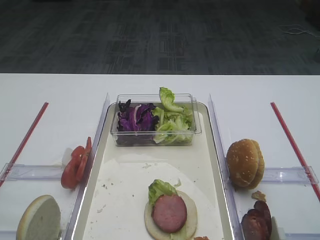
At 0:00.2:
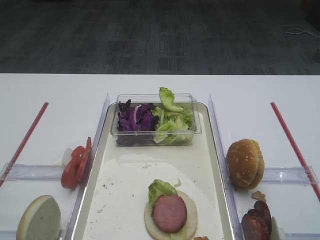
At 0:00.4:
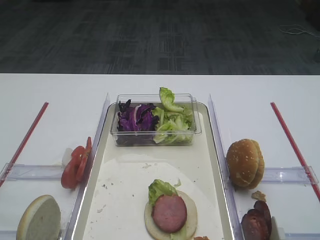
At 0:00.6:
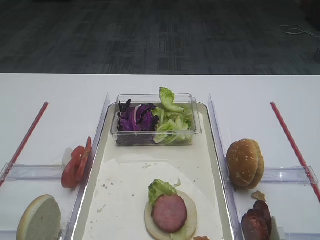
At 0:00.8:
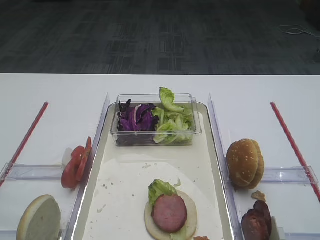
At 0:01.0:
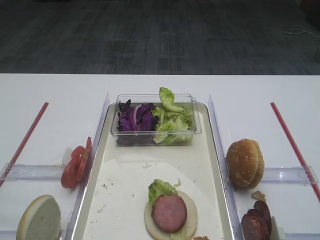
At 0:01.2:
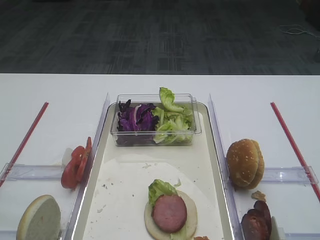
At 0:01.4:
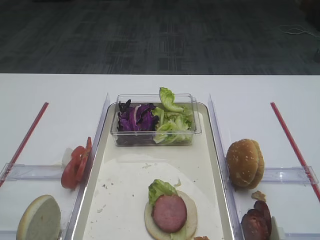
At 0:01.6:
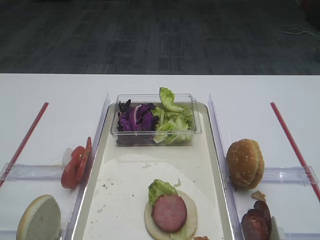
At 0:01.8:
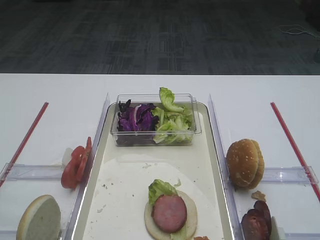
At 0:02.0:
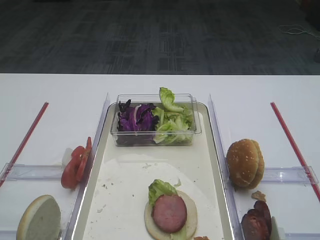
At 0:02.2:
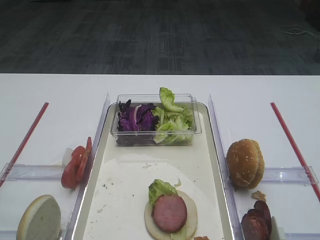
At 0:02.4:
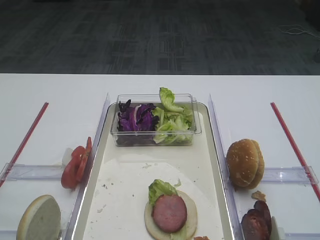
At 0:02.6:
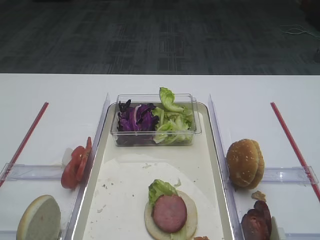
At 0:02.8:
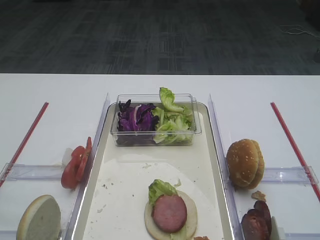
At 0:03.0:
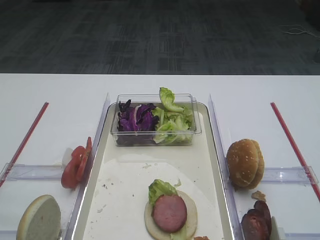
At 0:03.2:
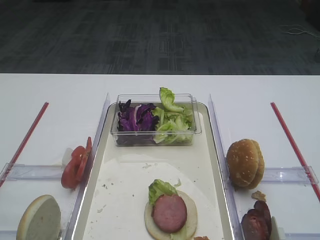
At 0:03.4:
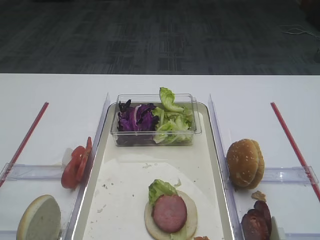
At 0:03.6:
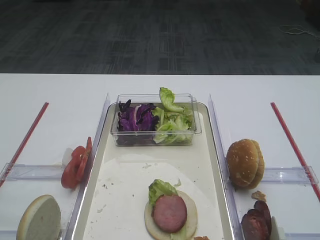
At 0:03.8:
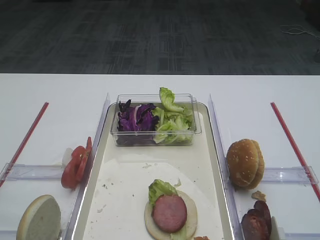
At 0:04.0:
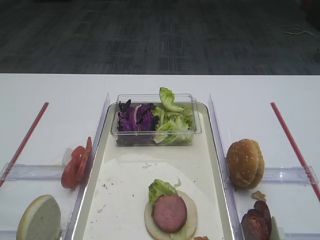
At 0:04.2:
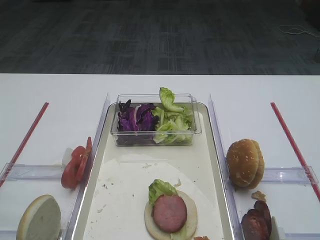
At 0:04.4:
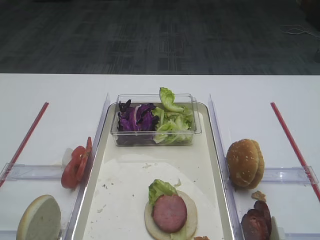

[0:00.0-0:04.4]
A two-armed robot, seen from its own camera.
0:03.0 to 0:04.4: Neither gripper changes place.

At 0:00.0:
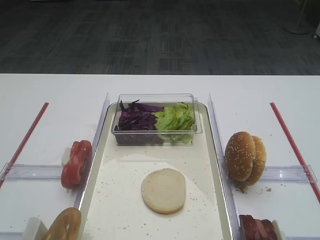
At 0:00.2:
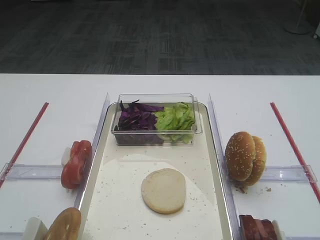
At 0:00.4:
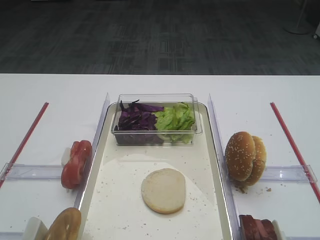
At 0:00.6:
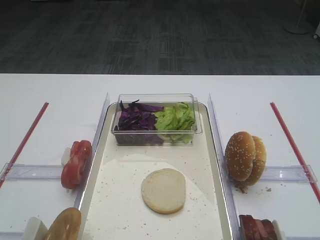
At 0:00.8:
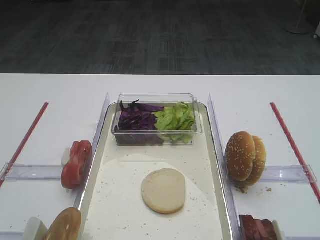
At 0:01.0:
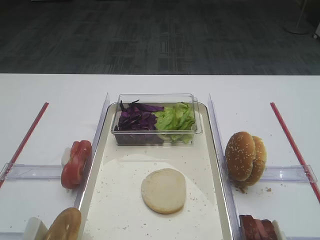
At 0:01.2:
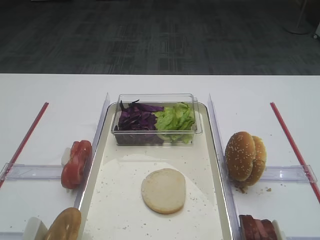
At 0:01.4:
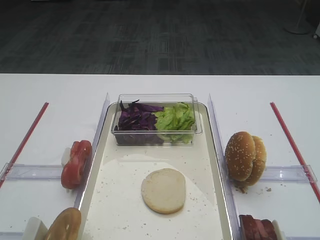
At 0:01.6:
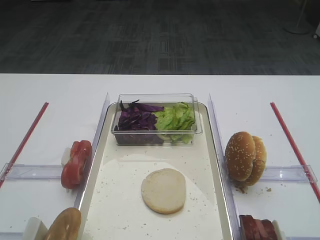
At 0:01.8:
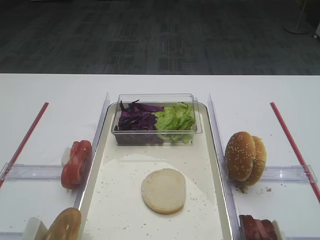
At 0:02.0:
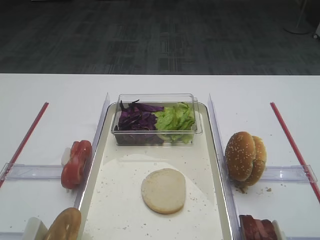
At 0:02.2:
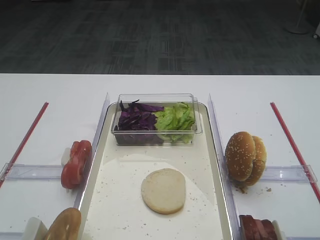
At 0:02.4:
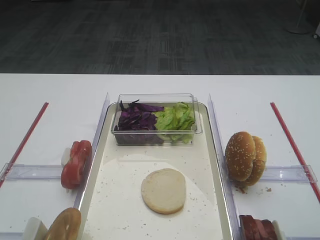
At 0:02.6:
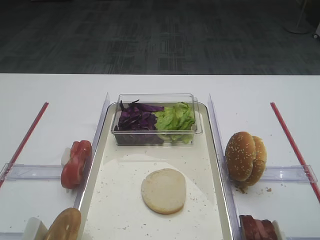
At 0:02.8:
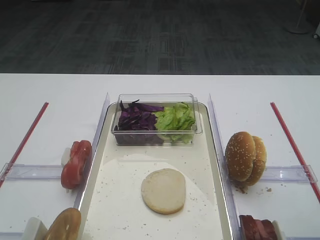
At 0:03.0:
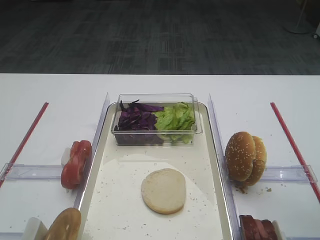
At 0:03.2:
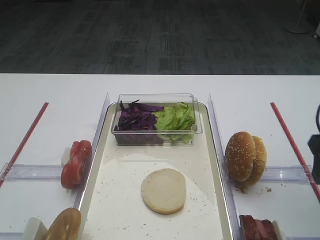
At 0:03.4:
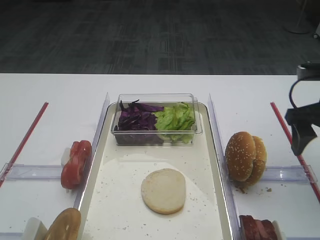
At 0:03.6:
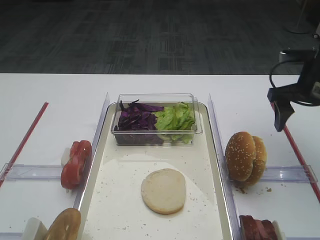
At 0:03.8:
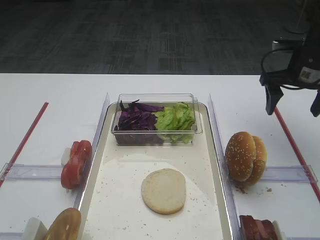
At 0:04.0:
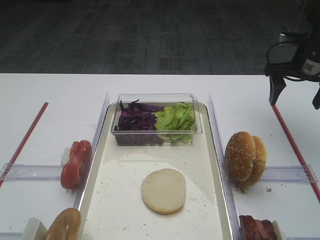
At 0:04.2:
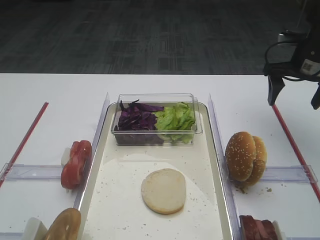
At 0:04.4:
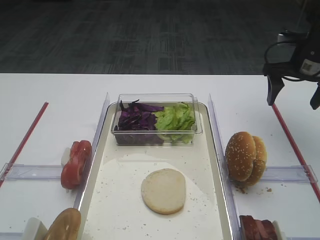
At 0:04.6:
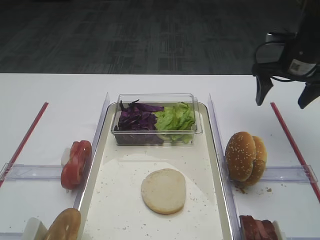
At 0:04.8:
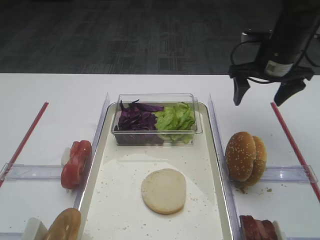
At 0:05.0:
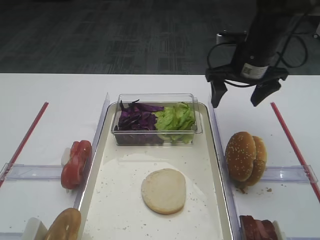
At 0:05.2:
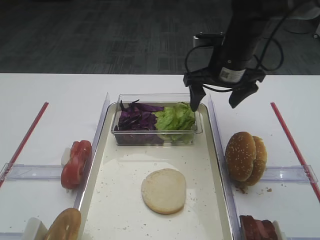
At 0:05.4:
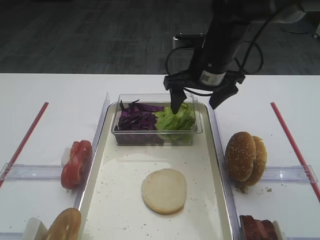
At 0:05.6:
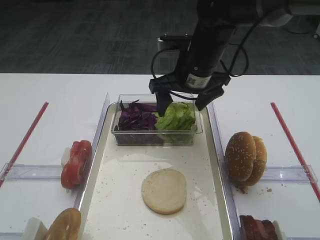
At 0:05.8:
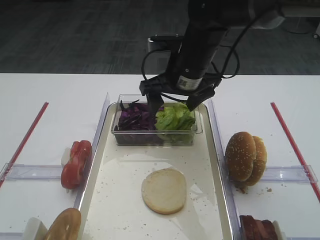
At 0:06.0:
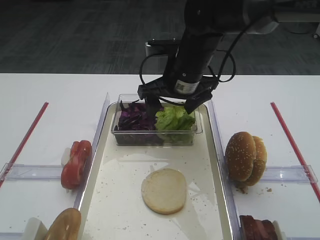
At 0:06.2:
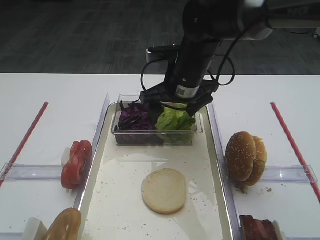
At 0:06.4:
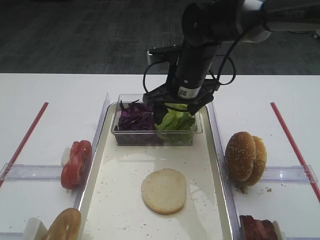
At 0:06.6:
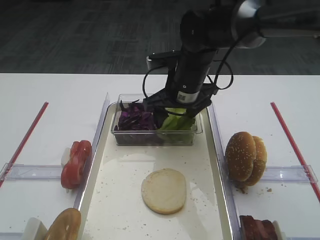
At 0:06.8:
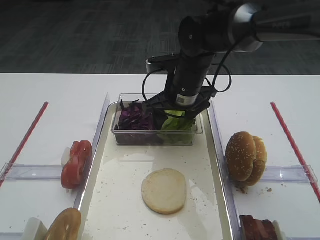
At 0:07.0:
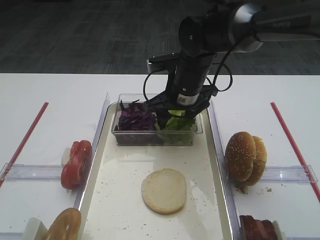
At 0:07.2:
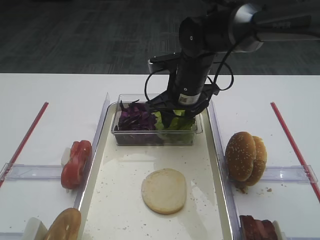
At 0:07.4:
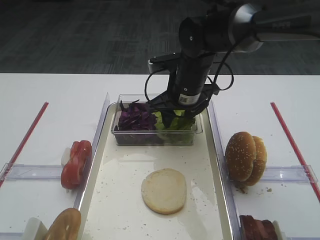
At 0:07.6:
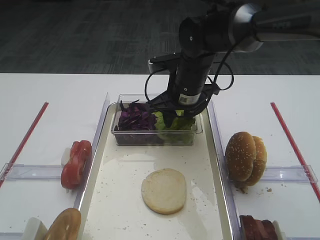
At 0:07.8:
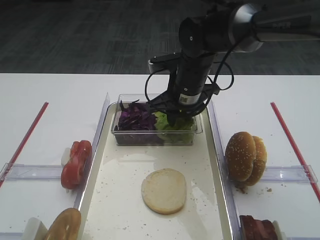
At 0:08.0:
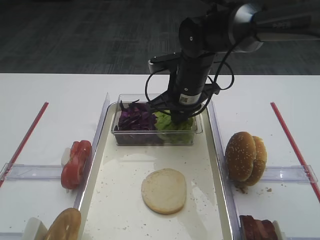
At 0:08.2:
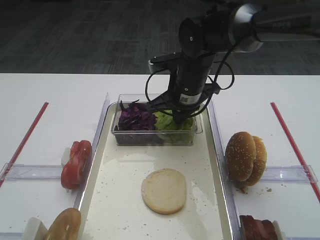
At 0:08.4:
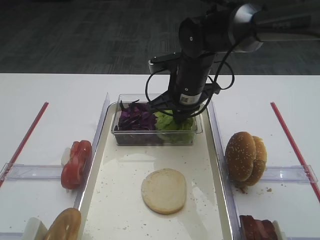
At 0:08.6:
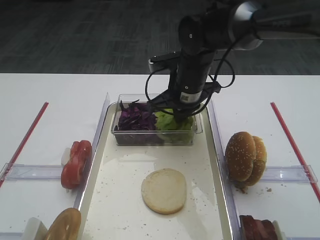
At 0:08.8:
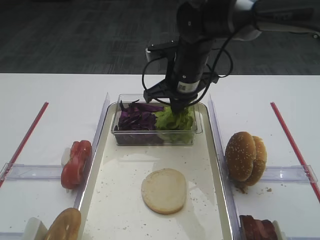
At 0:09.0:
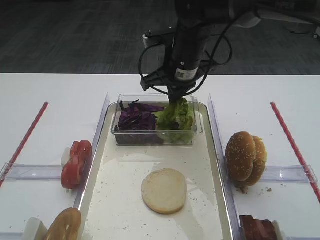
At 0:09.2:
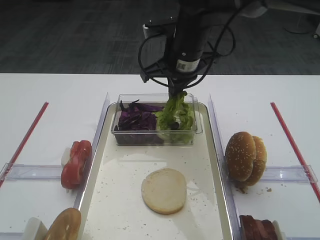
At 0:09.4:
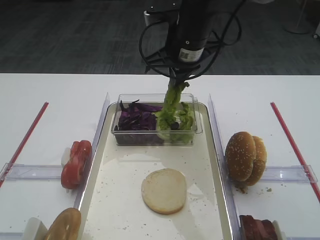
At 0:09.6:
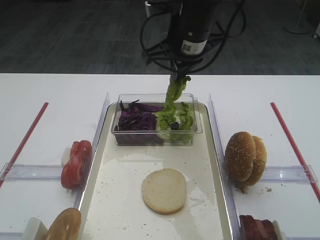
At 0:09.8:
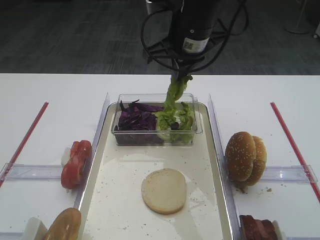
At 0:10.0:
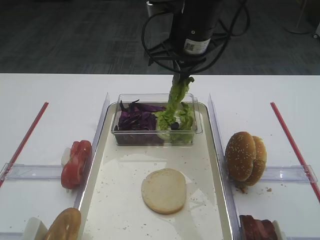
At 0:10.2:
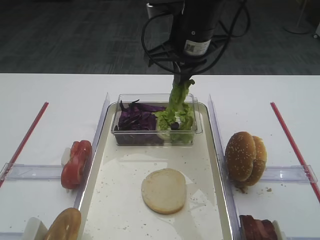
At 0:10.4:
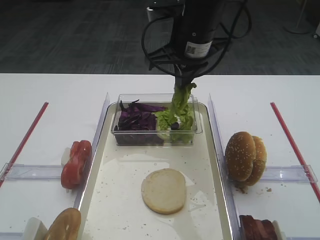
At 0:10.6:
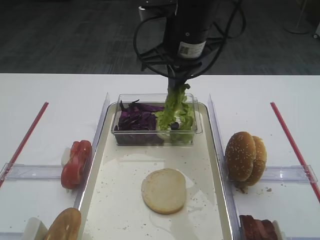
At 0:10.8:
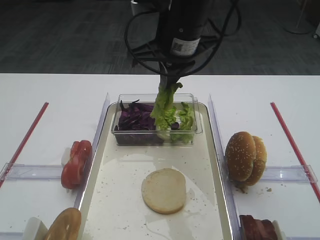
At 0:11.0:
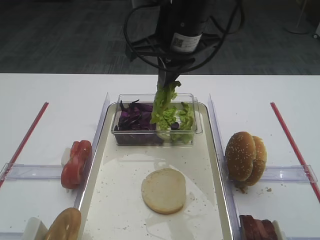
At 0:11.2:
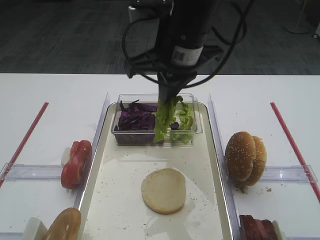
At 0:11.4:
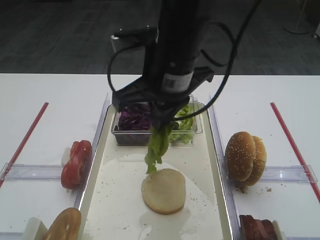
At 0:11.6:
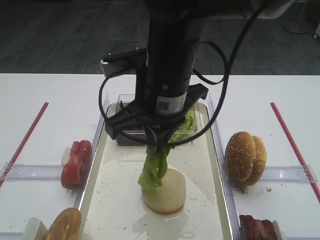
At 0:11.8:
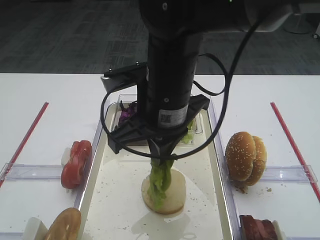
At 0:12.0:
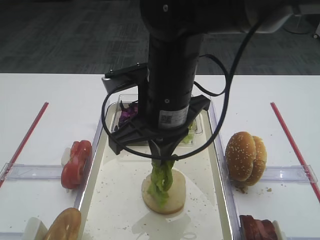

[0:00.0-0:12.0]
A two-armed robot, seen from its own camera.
Step, 0:00.0 to 0:09.0: Pick up the lettuce leaf with the right gripper.
0:01.6 to 0:03.0: The right gripper goes roughly 15 cm forward.
0:03.0 to 0:04.4: The right gripper is displaced forward by approximately 25 cm.
0:04.4 to 0:06.0: The right gripper travels to the left by approximately 25 cm.
0:06.0 to 0:07.6: The right gripper closes up.
0:07.6 to 0:09.0: The right gripper ends up some 5 cm from where it was, and closes up.
0:09.0 to 0:10.4: The right gripper travels upward by approximately 5 cm.
0:10.4 to 0:12.0: The right gripper goes roughly 10 cm backward.

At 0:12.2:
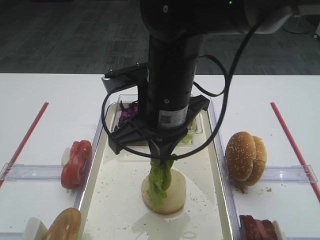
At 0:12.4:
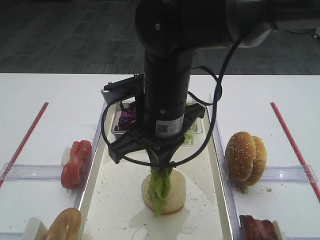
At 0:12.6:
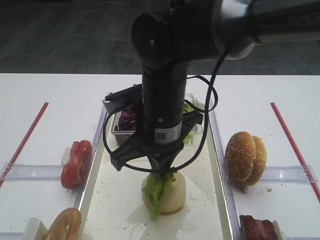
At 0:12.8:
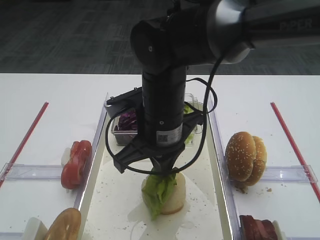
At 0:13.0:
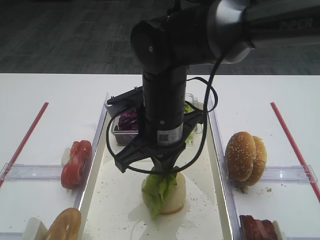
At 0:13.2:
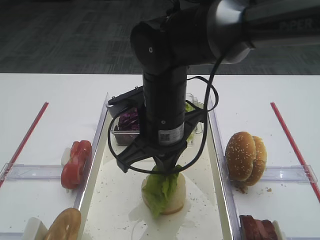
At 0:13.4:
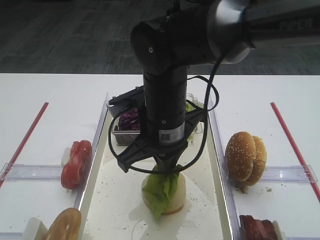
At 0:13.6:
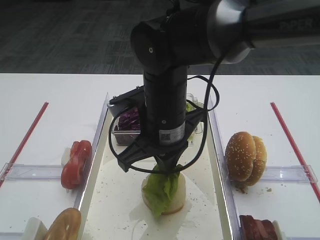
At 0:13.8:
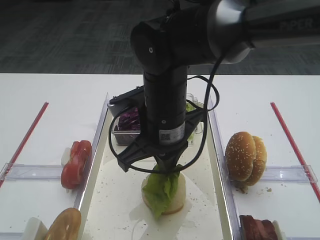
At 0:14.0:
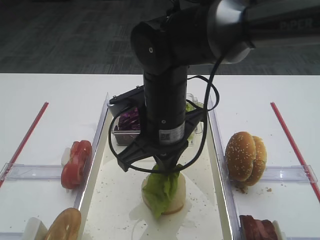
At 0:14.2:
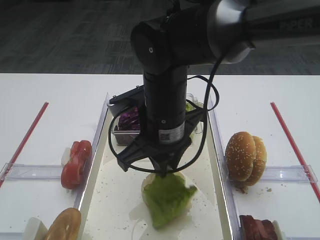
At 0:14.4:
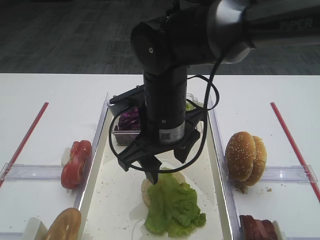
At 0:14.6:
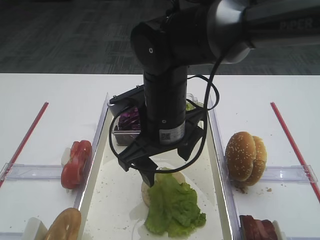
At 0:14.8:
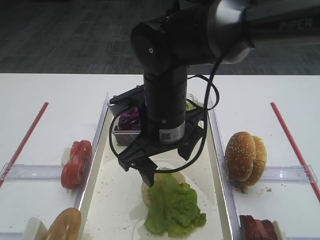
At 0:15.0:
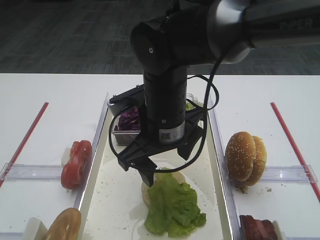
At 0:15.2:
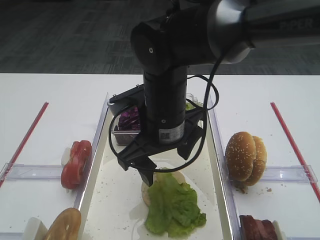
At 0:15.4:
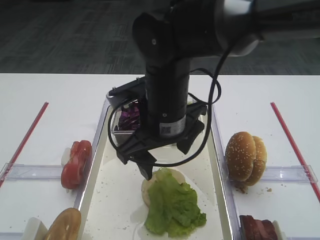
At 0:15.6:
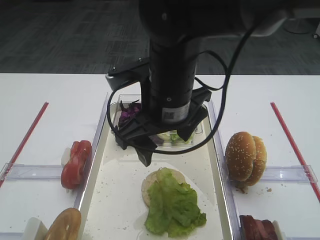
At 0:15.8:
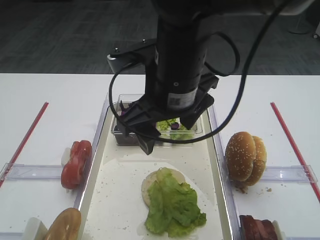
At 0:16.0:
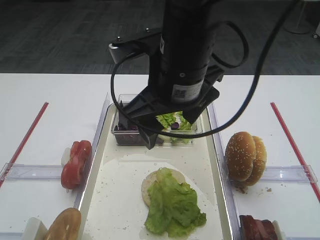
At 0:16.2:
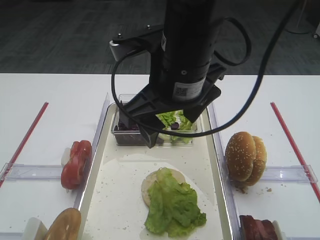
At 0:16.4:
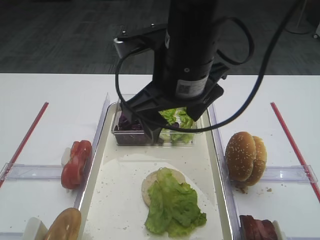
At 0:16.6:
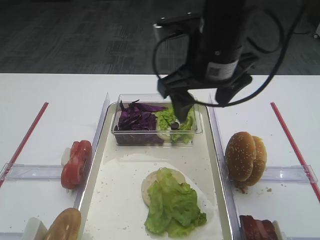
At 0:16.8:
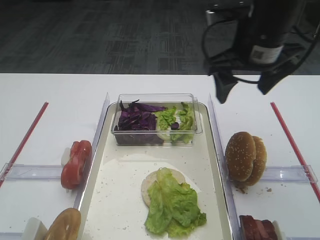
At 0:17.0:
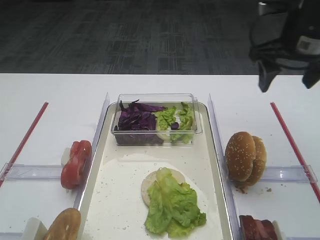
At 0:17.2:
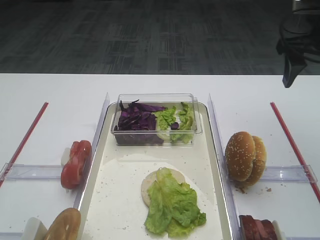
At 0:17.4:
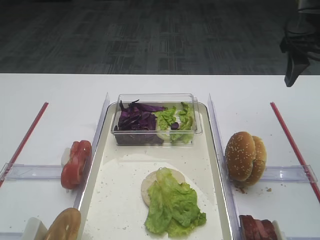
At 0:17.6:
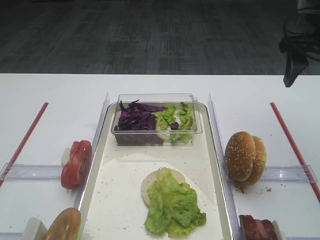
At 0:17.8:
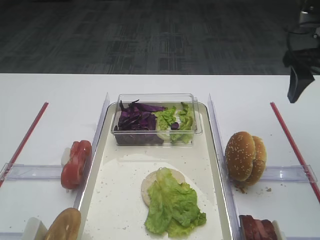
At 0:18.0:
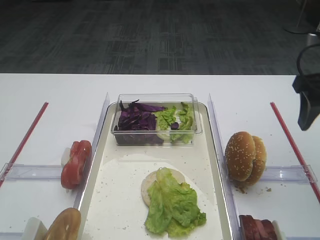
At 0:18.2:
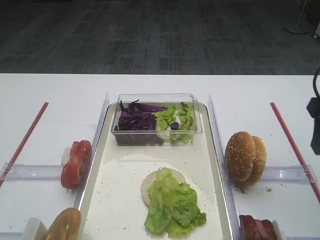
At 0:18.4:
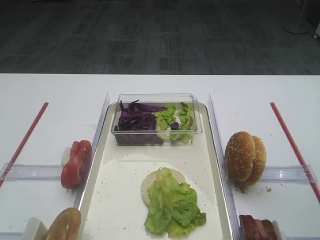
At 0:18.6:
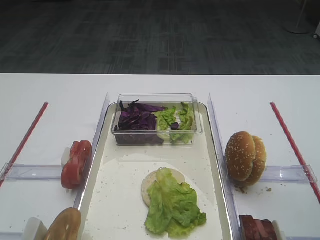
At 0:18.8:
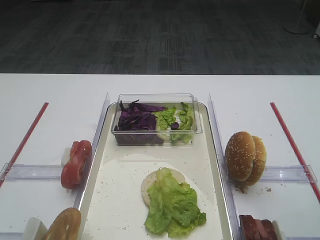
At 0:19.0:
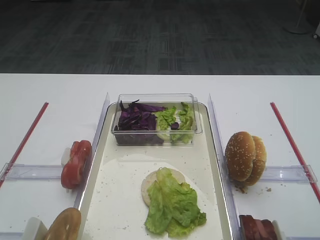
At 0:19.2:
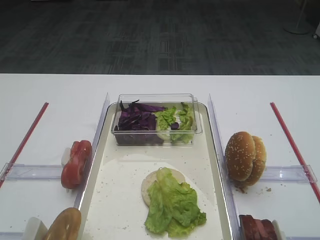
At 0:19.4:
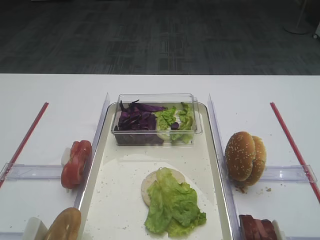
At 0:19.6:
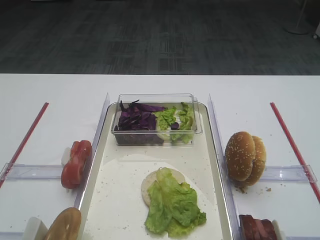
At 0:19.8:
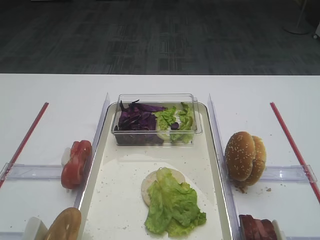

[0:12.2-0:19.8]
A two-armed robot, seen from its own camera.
Step, 0:12.2 to 0:14.4: Place the lettuce leaf on the bread slice with the right gripper.
0:12.2 to 0:13.8: The grippers make only small movements.
0:13.8 to 0:15.2: The right gripper opens its fingers.
0:15.2 to 0:16.8: The right gripper goes approximately 15 cm to the right and upward.
0:16.8 to 0:18.2: The right gripper travels to the right and backward by some 15 cm.
0:18.2 to 0:19.8: The right gripper goes roughly 20 cm backward.
